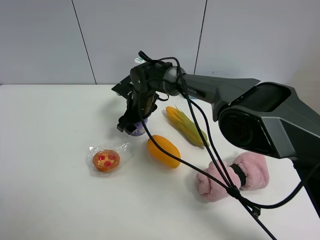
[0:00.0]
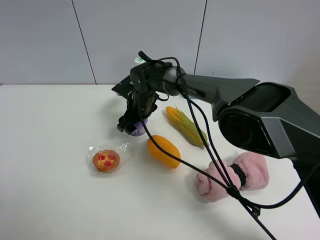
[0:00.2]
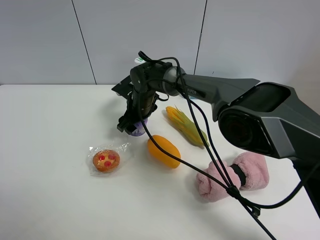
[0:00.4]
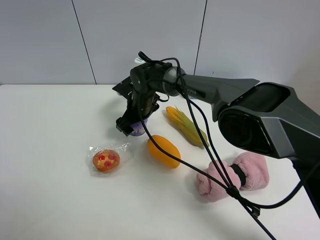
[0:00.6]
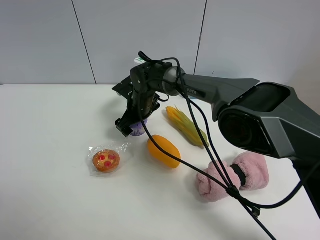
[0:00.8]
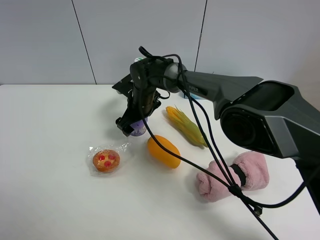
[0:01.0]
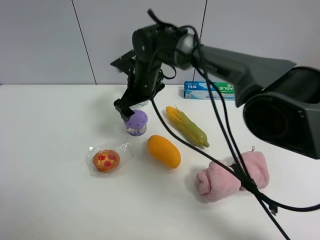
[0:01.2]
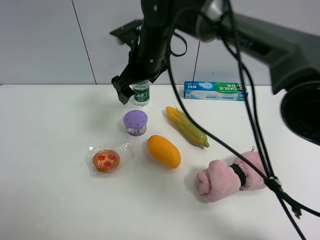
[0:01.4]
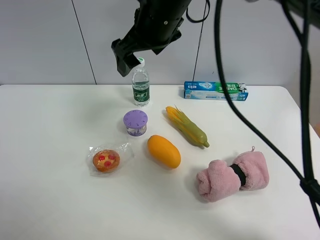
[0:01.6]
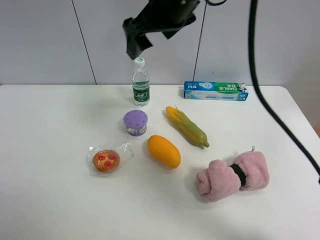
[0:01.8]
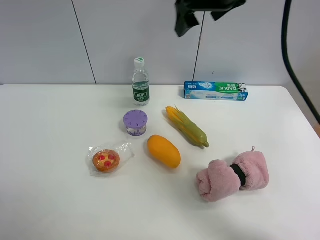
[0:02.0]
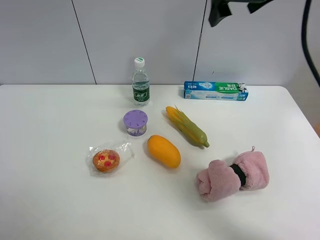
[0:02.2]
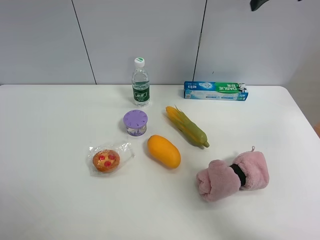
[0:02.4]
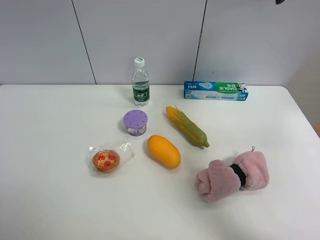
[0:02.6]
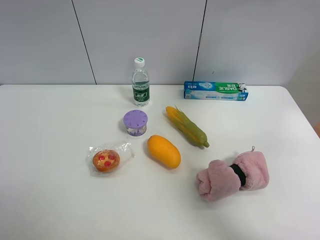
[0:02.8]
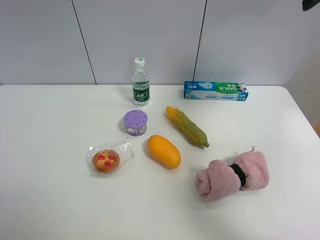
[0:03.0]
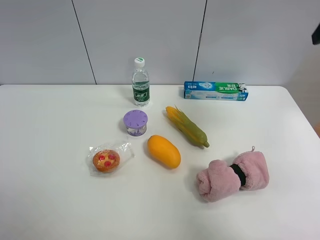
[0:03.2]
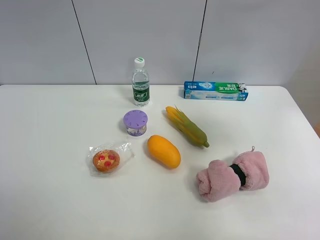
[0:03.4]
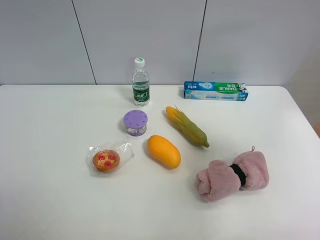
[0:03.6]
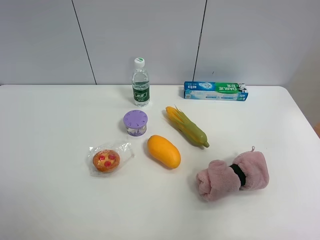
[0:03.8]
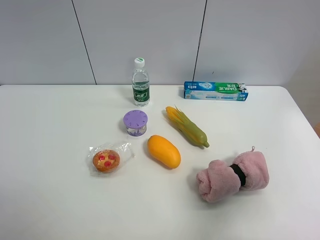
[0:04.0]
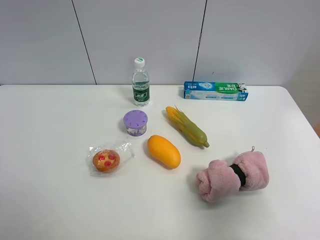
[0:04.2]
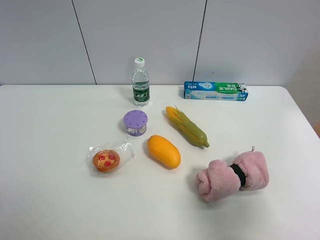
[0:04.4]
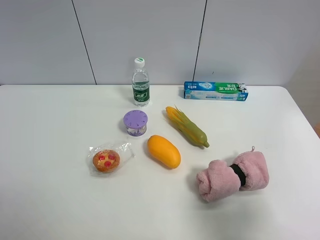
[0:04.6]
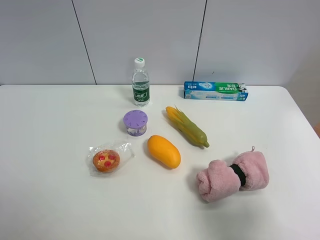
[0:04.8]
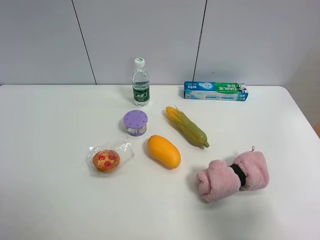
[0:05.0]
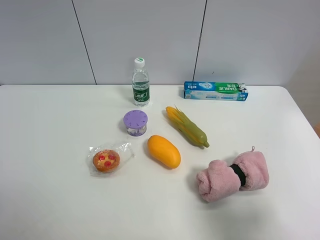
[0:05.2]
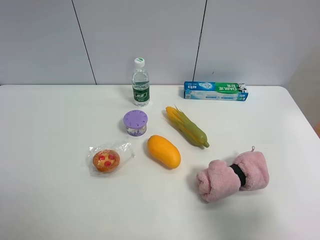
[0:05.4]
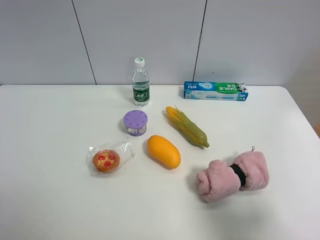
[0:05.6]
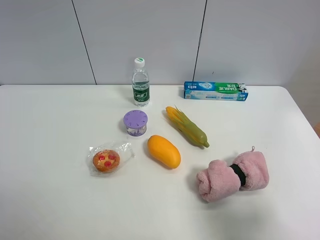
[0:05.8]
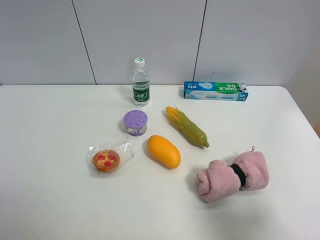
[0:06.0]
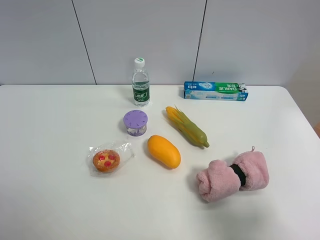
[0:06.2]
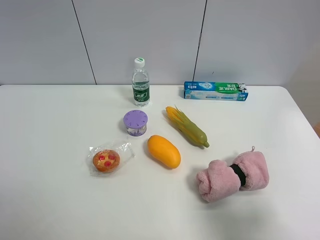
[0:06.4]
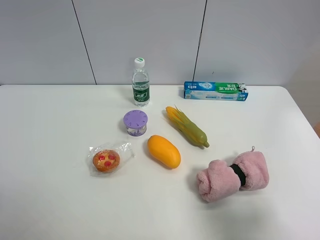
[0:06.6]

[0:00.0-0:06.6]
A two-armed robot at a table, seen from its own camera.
Task of the whole recording: the gripper move the object.
0:00.0 to 0:01.6: The right gripper is displaced upward by roughly 25 cm, and opens.
0:01.6 to 0:03.2: The right gripper is displaced to the right by about 30 cm.
0:03.2 to 0:05.0: The right gripper travels backward and downward by about 30 cm.
0:05.0 to 0:06.6: Both grippers stay put.

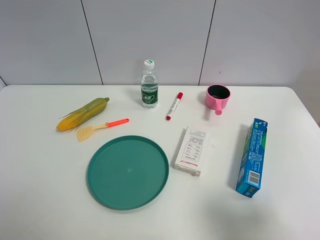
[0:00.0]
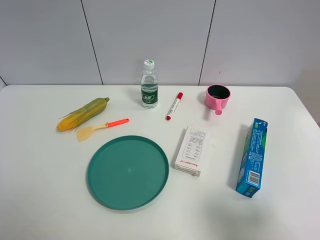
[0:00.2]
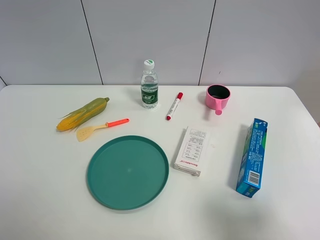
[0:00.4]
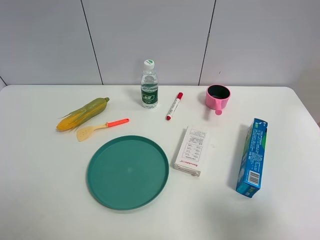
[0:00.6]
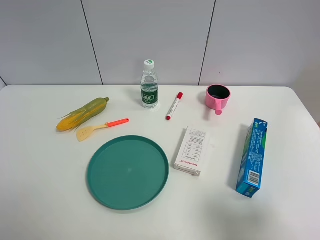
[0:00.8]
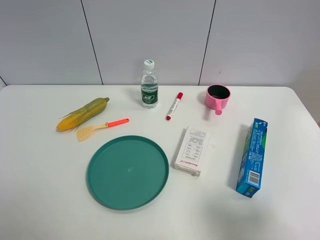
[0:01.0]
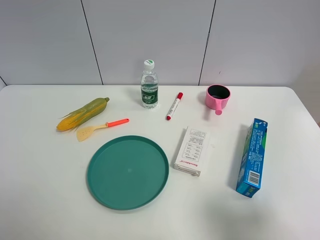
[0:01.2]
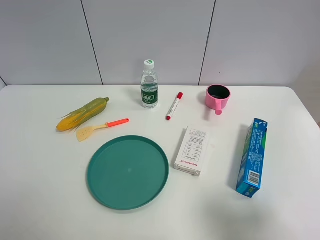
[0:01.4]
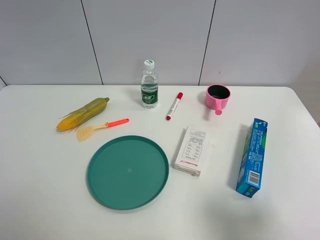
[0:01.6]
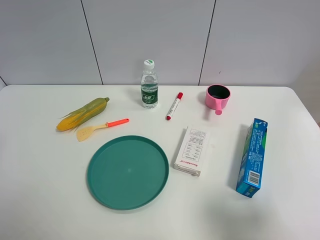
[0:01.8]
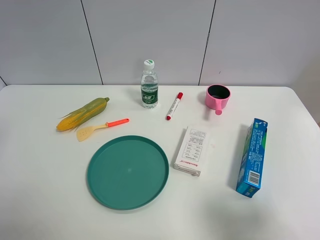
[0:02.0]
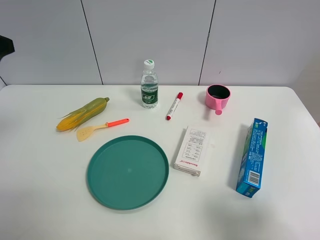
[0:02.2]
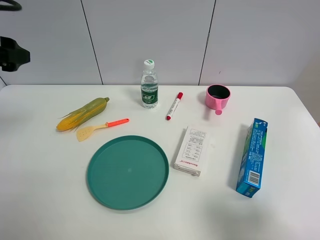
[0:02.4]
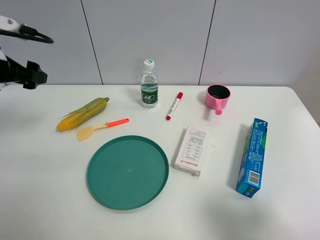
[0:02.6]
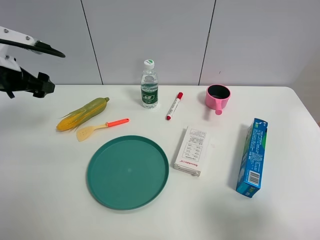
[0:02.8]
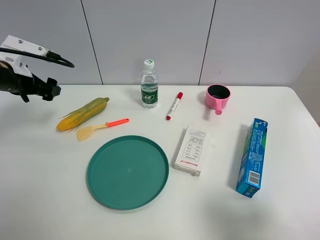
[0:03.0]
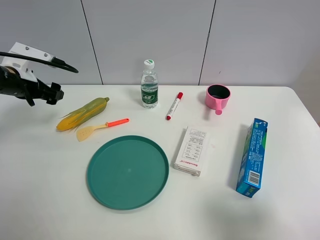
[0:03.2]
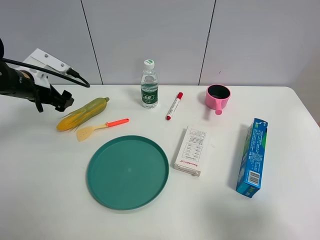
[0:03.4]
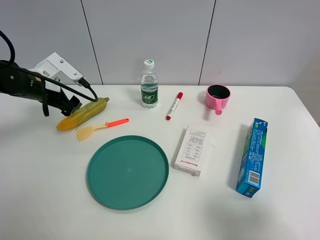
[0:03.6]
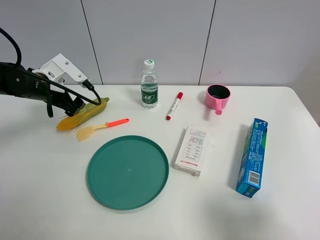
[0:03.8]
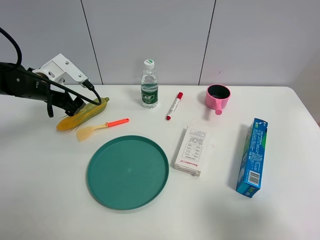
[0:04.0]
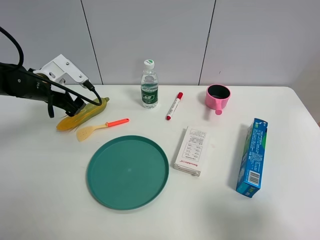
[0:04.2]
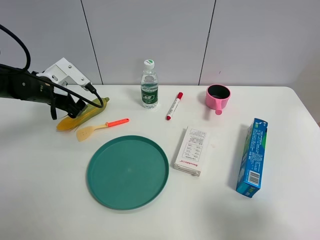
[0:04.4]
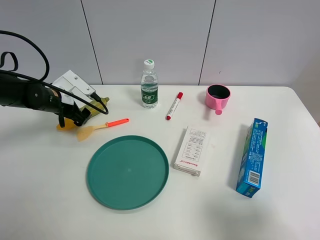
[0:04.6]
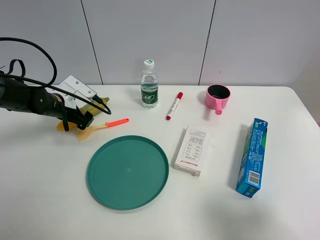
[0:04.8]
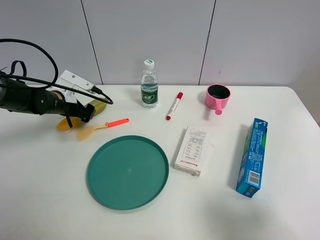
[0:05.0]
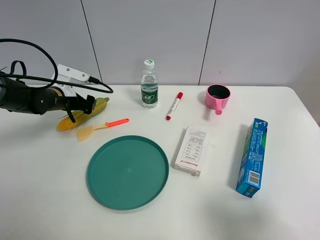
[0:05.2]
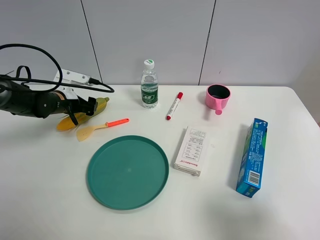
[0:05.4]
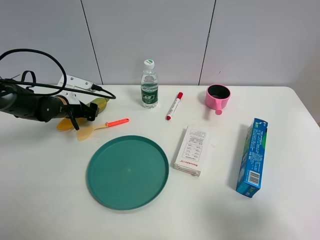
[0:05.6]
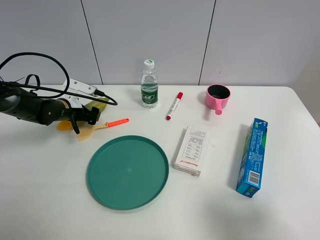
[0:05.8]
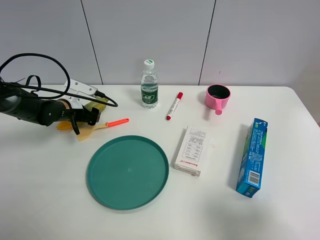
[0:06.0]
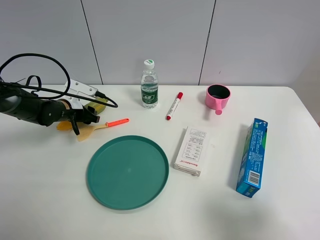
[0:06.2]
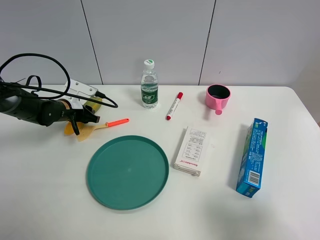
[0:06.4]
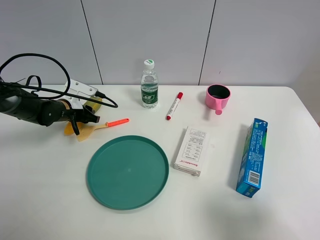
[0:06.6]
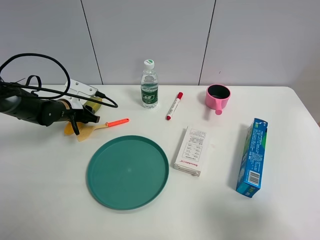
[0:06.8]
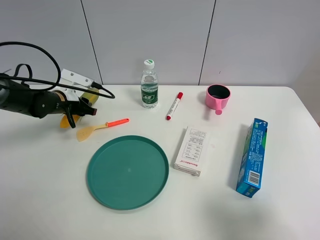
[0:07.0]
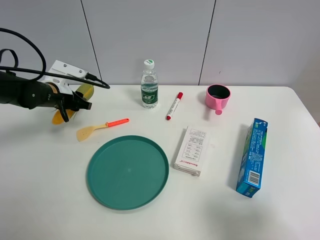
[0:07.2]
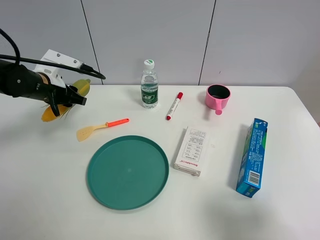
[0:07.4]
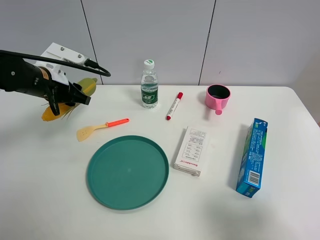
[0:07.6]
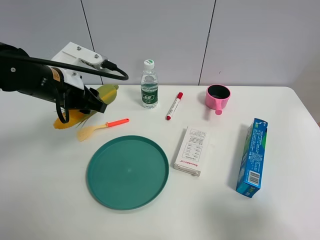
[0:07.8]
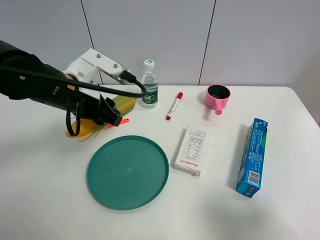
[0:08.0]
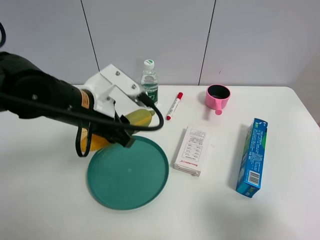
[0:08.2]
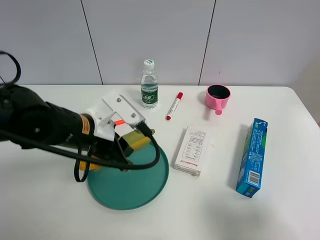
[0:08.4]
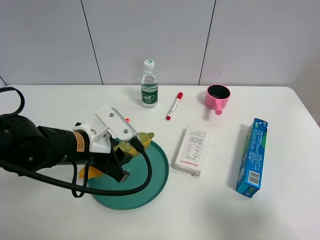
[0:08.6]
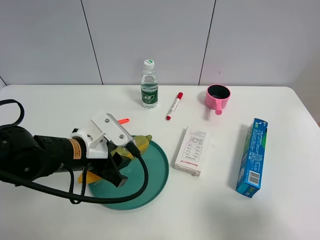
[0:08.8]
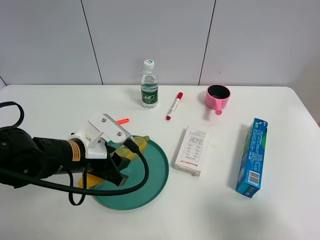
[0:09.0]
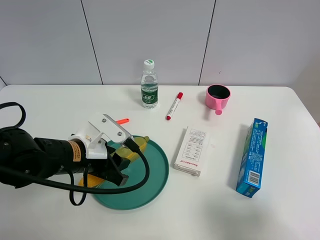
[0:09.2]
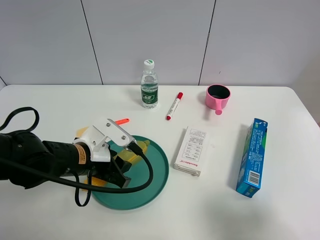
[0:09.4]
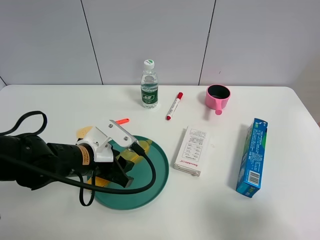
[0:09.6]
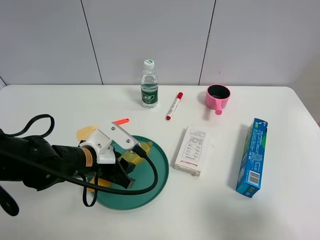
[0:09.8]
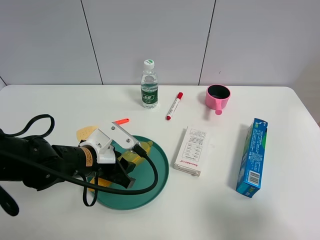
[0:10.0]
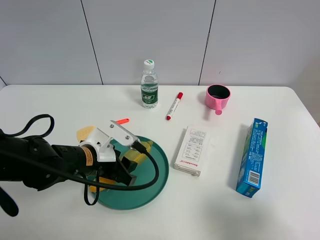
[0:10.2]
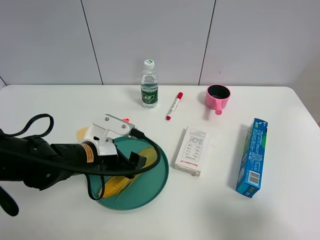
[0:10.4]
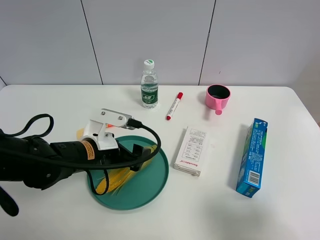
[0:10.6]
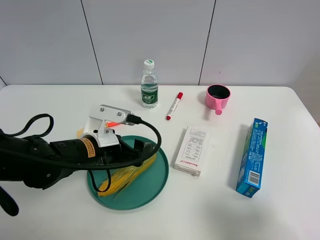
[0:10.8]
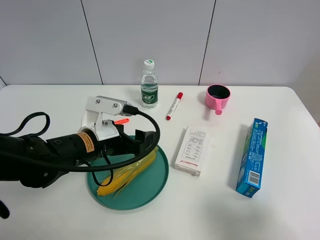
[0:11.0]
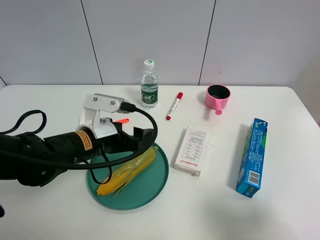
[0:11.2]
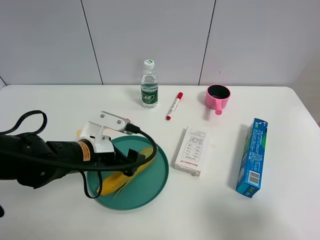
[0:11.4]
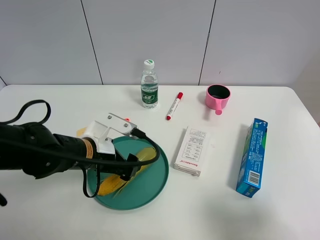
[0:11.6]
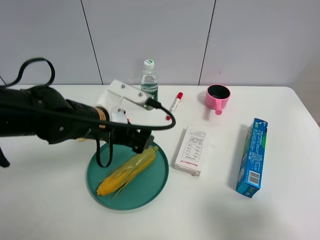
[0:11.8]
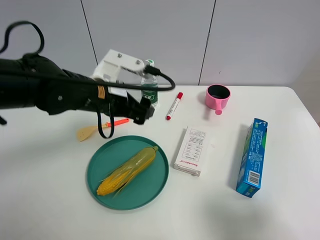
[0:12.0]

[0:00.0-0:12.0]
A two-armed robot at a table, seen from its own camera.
Task of the whole recording: the gripper move the object.
Step, 0:00.0 to 0:06.2: Grasp the corn with the left gripper.
Step, 0:06.4 to 0:10.4: Place the corn into the green plate with the left gripper.
0:01.6 to 0:03.0: The left gripper moves forward and downward, some 30 cm.
0:03.0 to 0:04.4: The left gripper is displaced to the right and downward by about 10 cm.
0:04.4 to 0:06.0: The left gripper goes approximately 10 cm downward.
0:06.0 to 0:07.6: The left gripper moves upward and backward, approximately 15 cm, and closes up.
0:07.6 to 0:09.0: The left gripper shifts about 15 cm backward, to the right and downward.
0:09.0 to 0:10.4: The left gripper opens its fingers.
0:10.4 to 0:12.0: The left gripper shifts some 15 cm upward and forward.

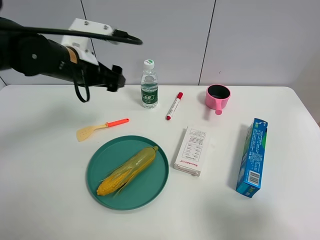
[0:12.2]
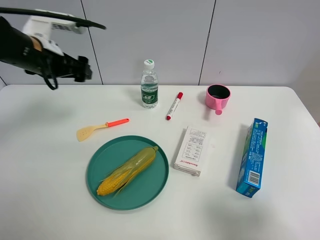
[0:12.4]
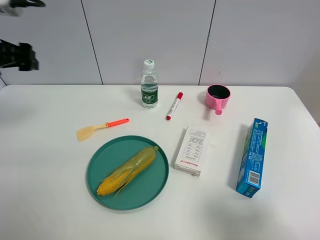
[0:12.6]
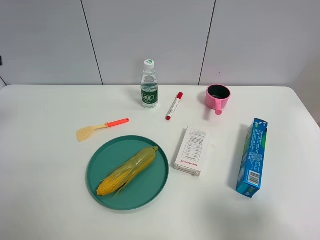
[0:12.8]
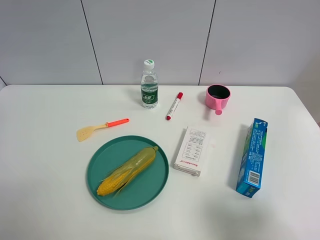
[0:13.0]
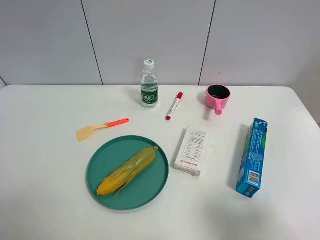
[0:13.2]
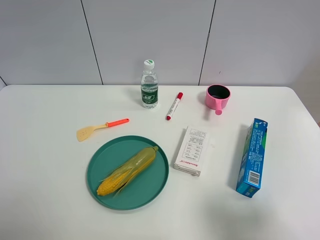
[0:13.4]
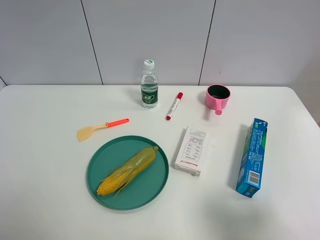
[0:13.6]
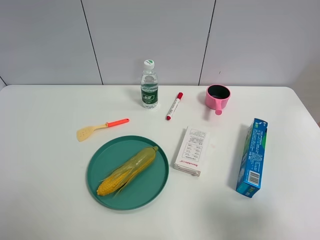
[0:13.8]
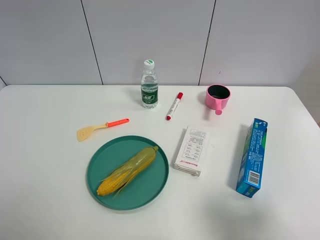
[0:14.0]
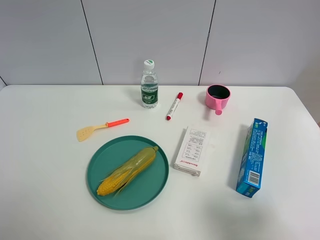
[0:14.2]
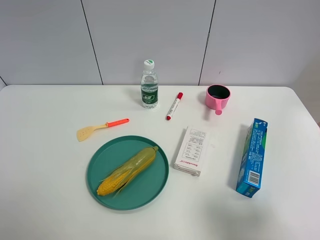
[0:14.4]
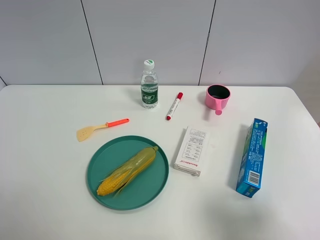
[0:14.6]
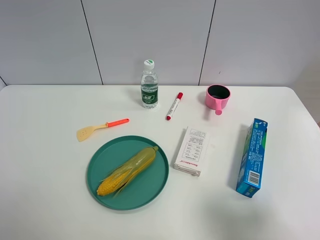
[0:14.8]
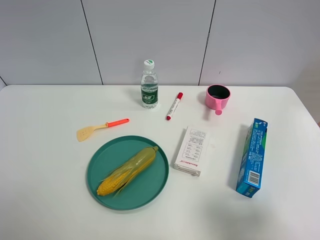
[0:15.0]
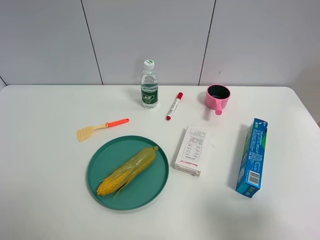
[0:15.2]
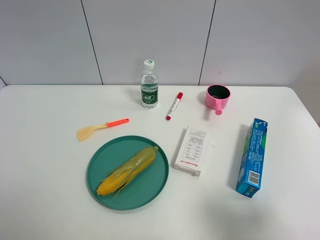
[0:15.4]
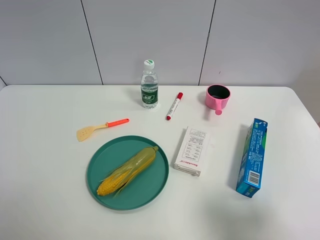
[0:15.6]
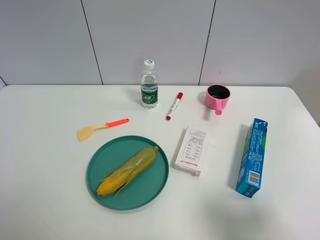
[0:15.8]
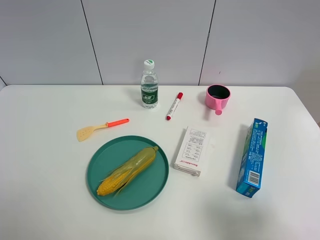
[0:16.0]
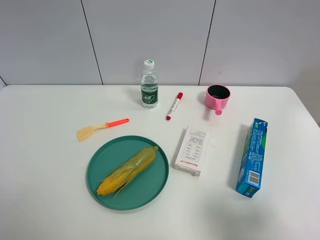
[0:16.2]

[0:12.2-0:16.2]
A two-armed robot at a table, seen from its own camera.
Task of the whole recording: the gripper move the object.
0:12.2 to 0:13.6: The left gripper travels backward, to the left and upward by roughly 30 cm.
0:14.8 to 0:16.2: Both grippers stay put.
